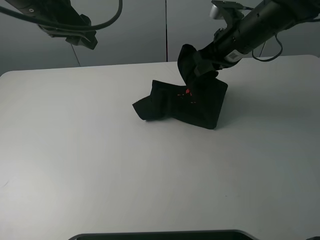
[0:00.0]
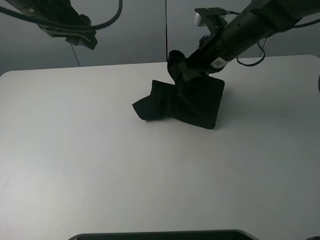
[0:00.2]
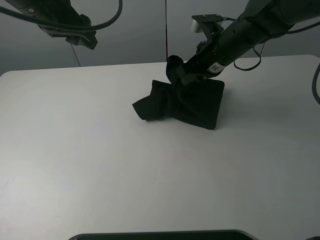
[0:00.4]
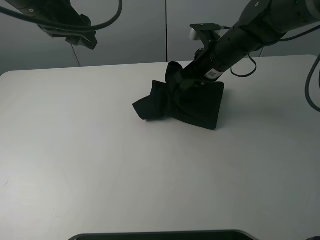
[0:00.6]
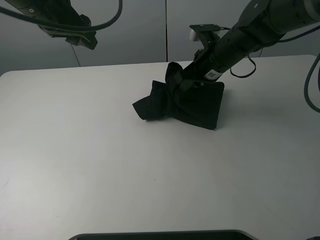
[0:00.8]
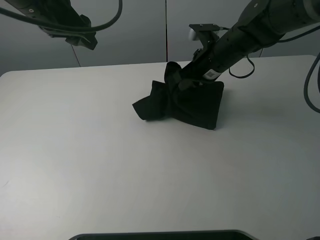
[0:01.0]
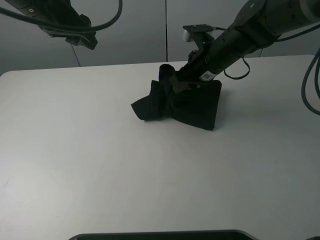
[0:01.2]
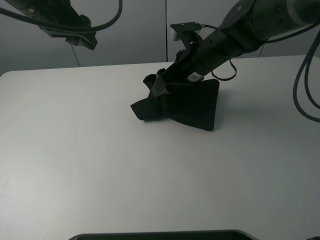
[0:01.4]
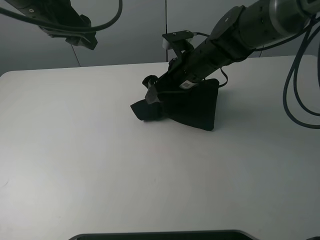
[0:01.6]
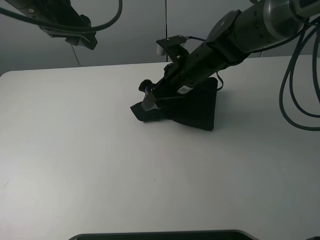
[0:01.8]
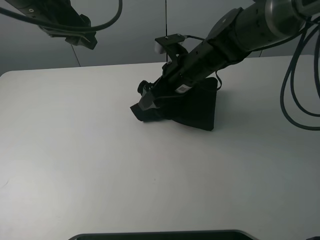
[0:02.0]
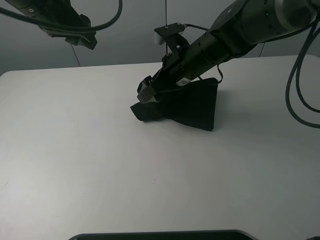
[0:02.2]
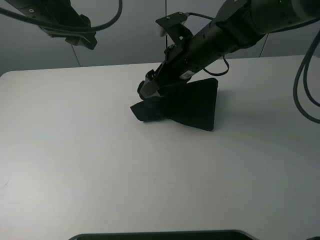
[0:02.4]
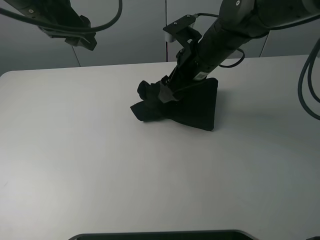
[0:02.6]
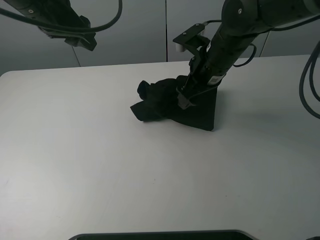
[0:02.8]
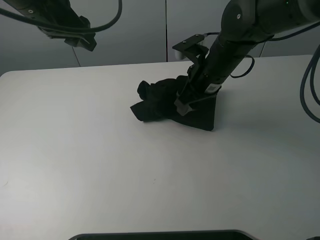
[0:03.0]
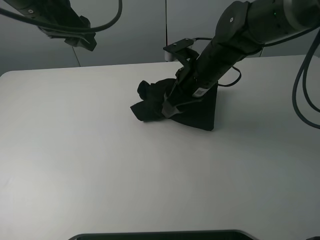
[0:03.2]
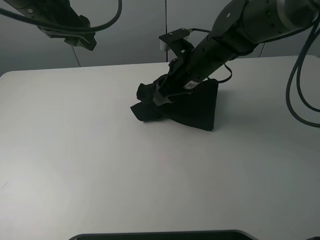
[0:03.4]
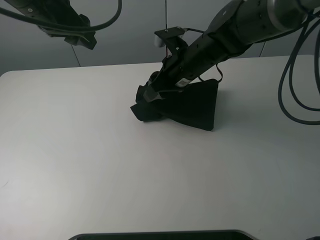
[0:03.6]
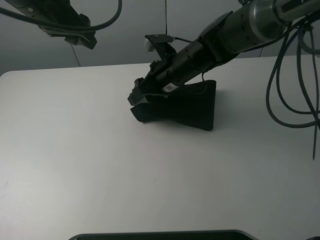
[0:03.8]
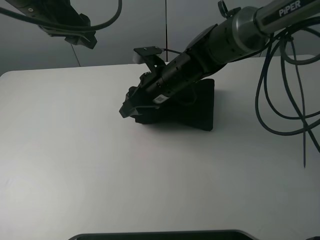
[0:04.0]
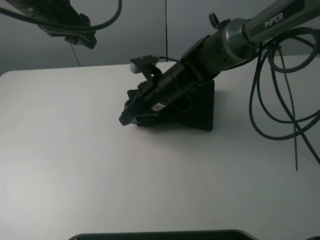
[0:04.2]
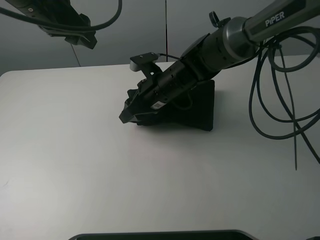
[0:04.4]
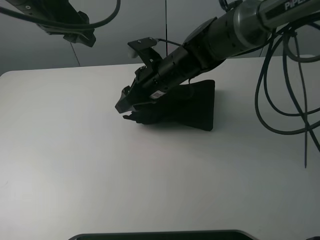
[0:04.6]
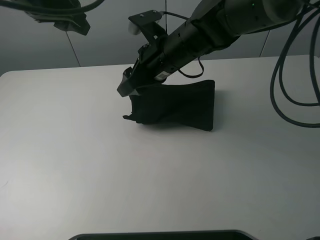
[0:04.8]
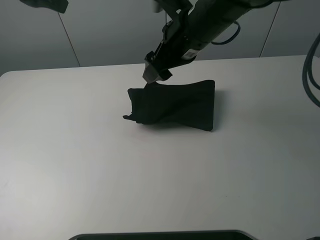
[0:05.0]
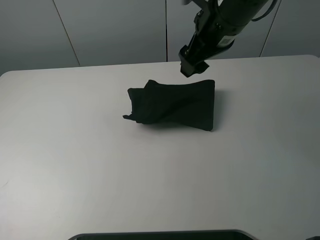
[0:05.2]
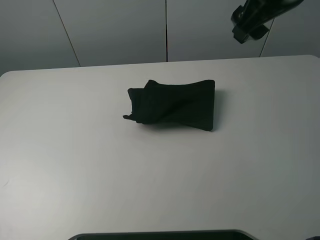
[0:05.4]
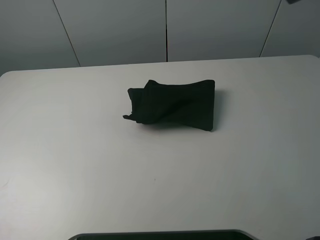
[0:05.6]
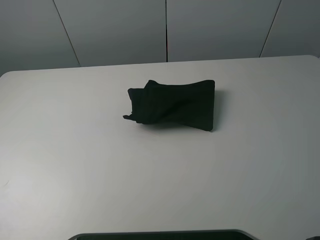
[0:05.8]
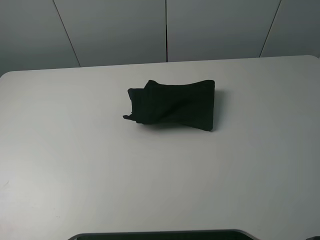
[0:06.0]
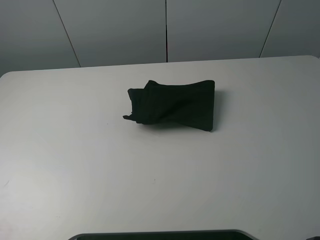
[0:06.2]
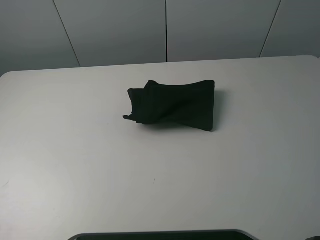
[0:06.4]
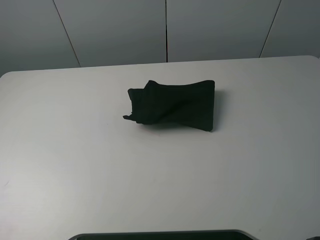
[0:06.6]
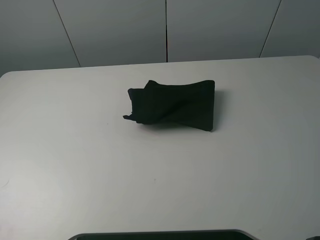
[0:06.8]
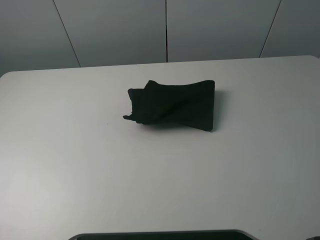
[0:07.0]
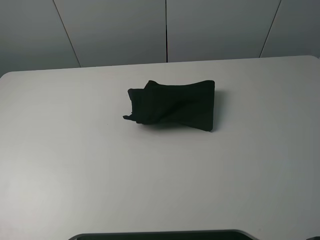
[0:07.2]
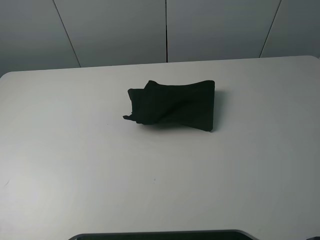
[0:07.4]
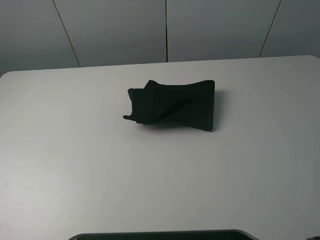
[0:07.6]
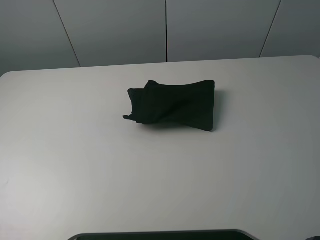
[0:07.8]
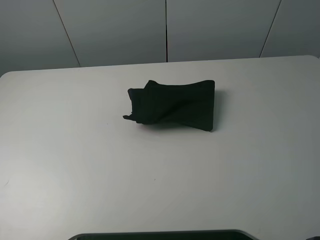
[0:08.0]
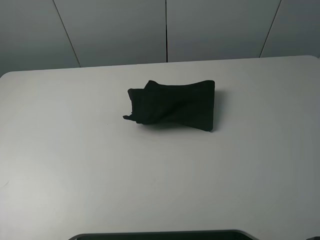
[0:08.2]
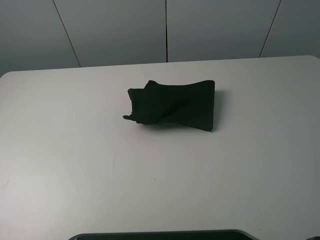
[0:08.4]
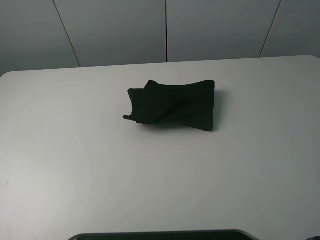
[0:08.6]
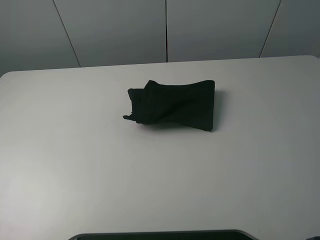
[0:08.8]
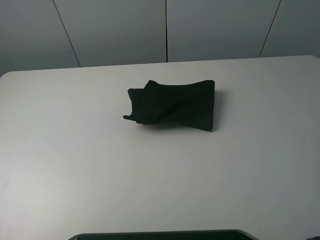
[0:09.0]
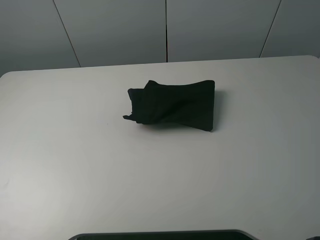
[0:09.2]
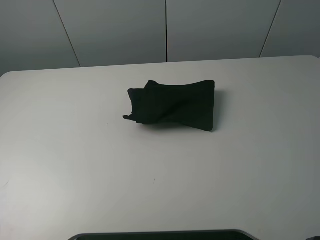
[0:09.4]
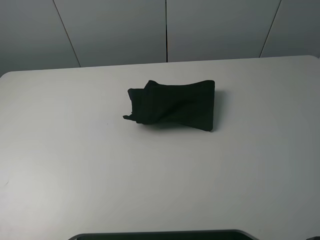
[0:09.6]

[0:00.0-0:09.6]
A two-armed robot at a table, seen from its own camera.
Task of the whole recording: fold the clothes on the table.
Step, 0:00.0 to 0:04.8: Fold the black T-shirt from right to left with right gripper.
0:00.0 to 0:01.6: The right gripper goes about 10 cm to the left and downward, and opens up.
0:03.2 to 0:04.8: The right gripper heads to the left, covering about 5 cm.
0:04.8 to 0:06.4: The right gripper goes about 60 cm backward, to the right and upward, while the left gripper heads backward and to the left, covering roughly 40 cm.
